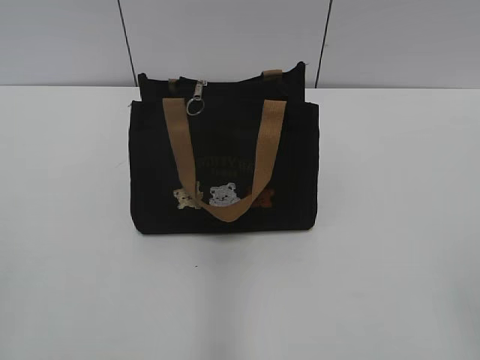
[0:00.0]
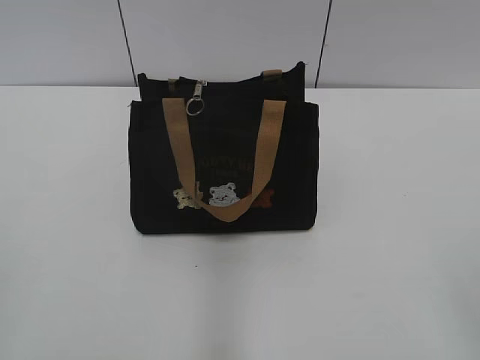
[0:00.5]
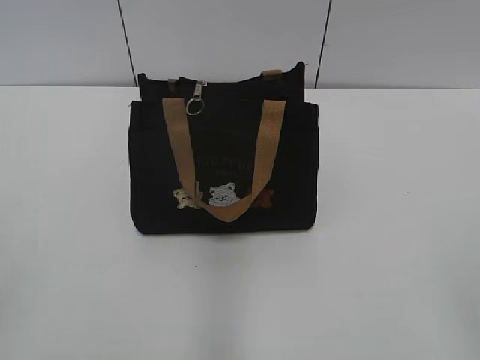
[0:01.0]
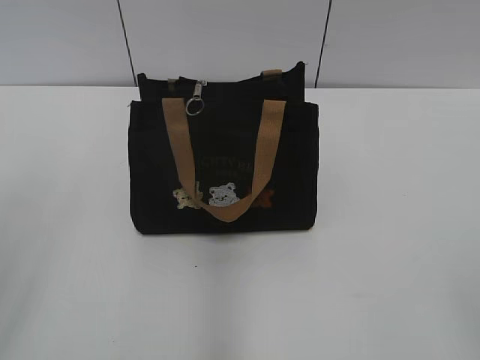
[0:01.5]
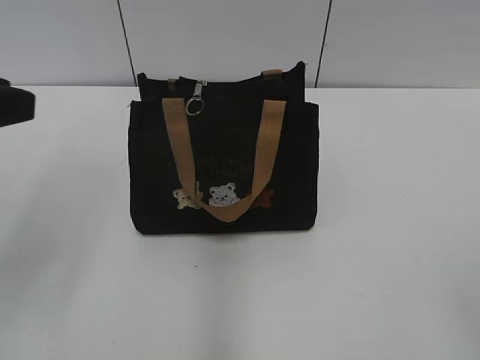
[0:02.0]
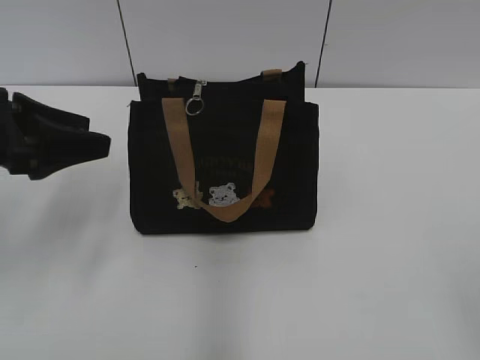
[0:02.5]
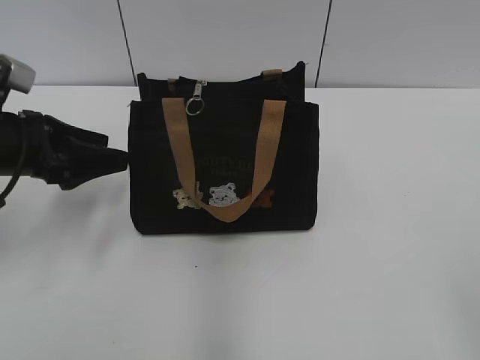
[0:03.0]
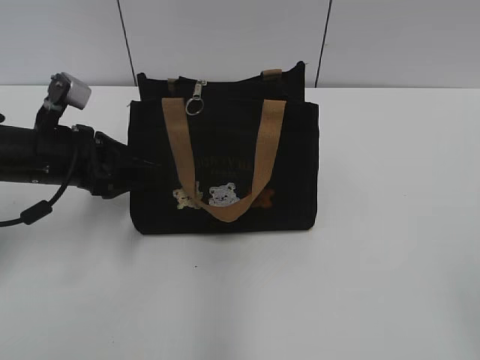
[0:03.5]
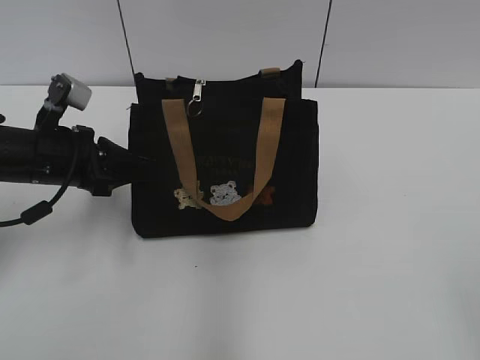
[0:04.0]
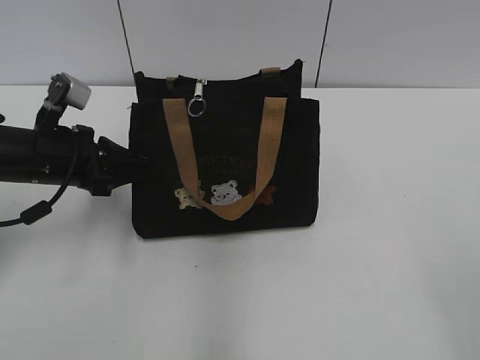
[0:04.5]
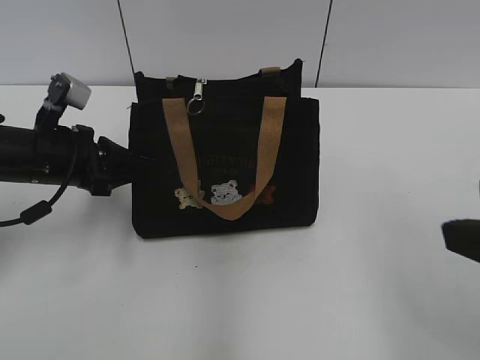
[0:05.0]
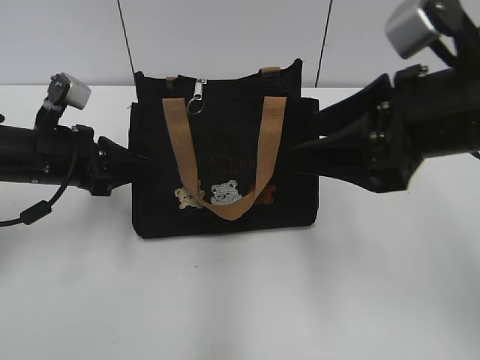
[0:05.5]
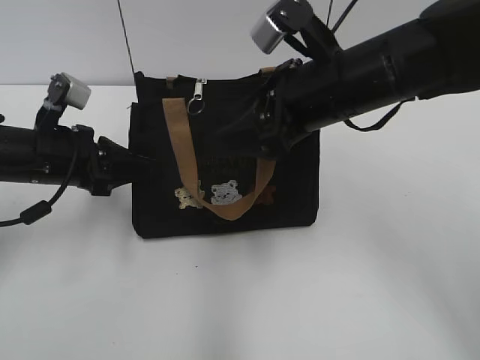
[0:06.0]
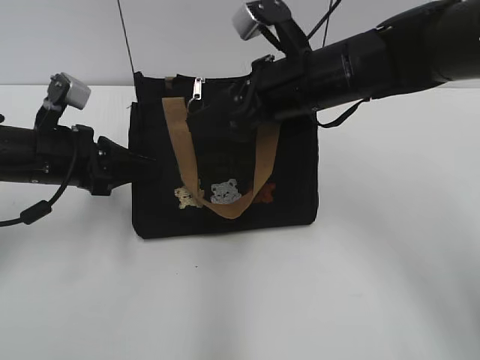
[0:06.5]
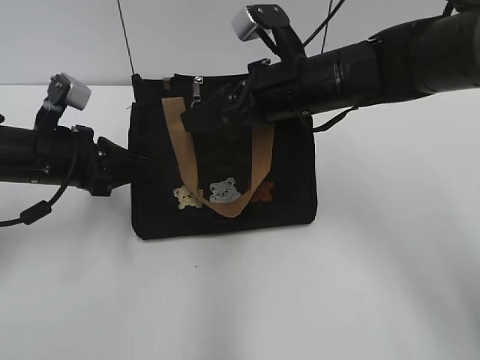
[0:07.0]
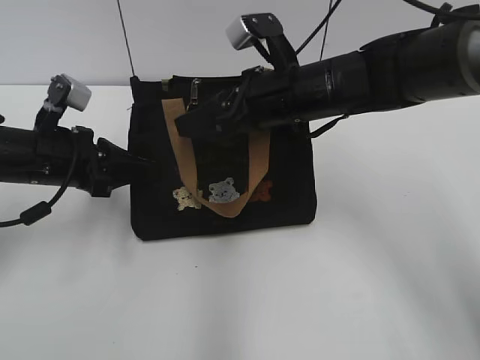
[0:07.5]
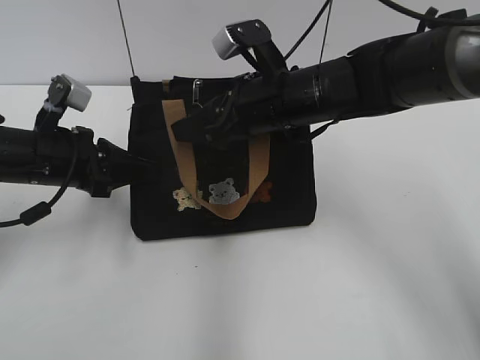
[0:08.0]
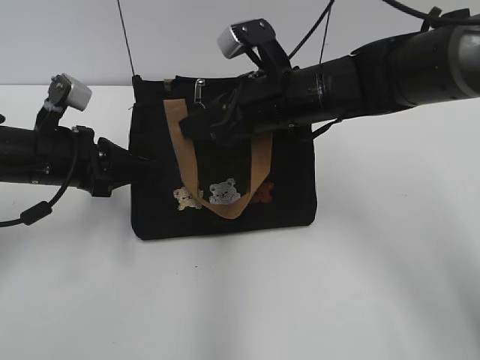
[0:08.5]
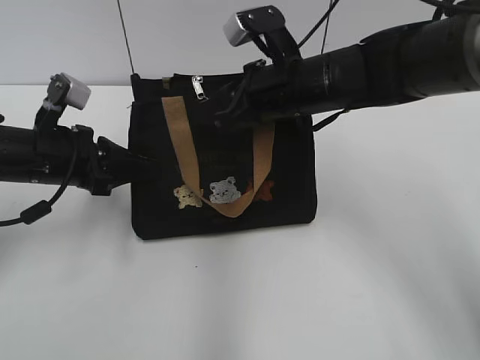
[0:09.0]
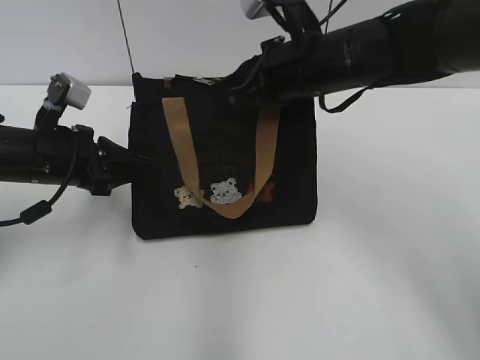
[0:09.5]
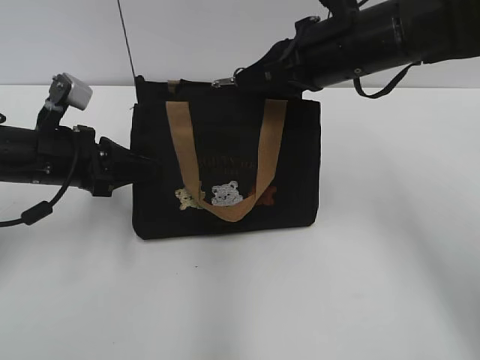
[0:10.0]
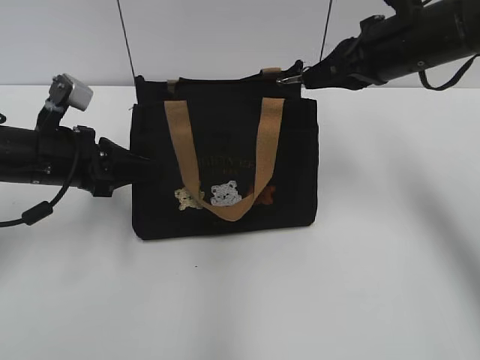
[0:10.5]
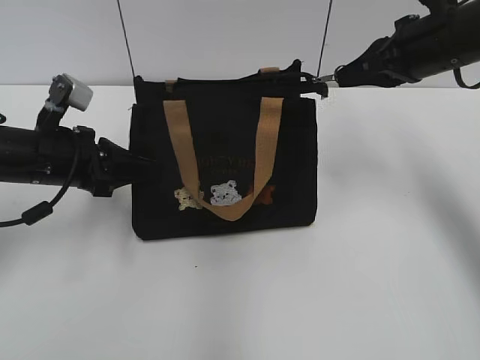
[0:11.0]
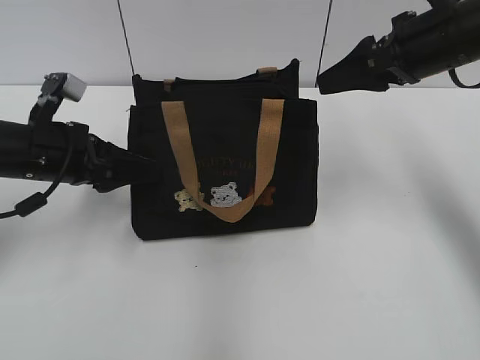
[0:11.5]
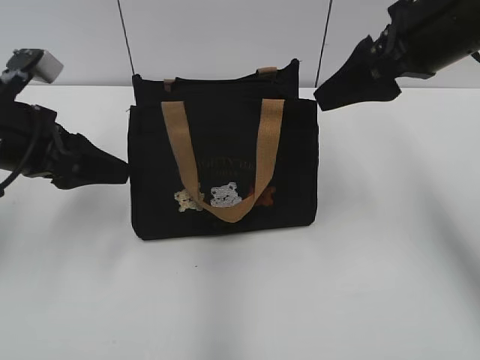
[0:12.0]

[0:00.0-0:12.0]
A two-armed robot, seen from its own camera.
Step, 0:00.0 to 0:11.0: Pull open the zipper with your right hand.
Step, 0:11.5 to 0:12.0: Hold the bag with your left hand.
0:02.0 to 0:04.0: The left gripper moves downward and forward, roughly 20 cm, and closes up.
0:04.0 to 0:06.0: The right gripper moves forward and to the left, roughly 35 cm.
0:06.0 to 0:08.0: The right gripper goes some 10 cm downward and forward.
0:08.0 to 0:10.0: The right gripper moves upward and to the right, some 10 cm, and closes.
0:10.0 to 0:12.0: The right gripper heads to the right, covering approximately 5 cm, and opens its fingers; the left gripper travels upward by roughly 5 cm, and opens.

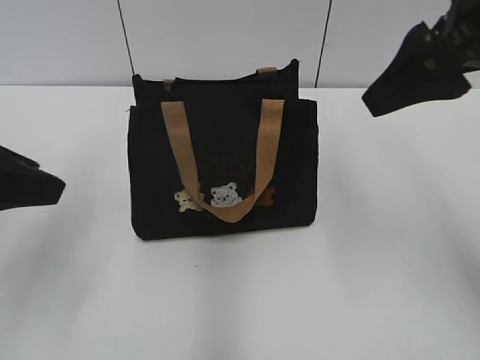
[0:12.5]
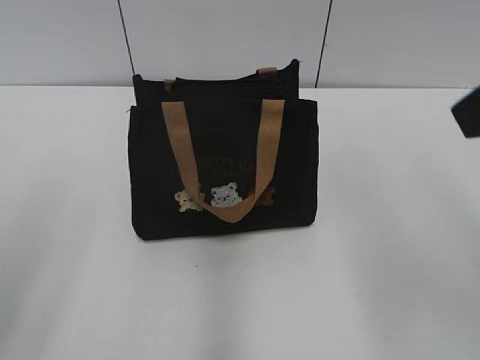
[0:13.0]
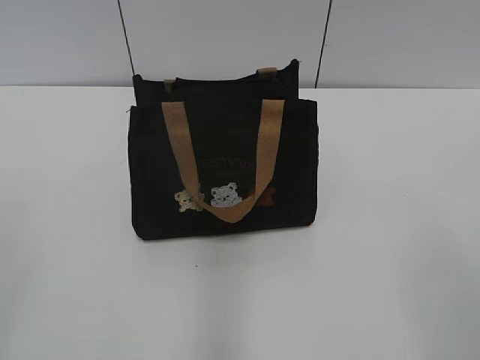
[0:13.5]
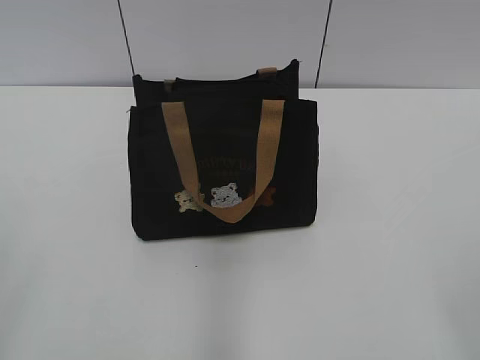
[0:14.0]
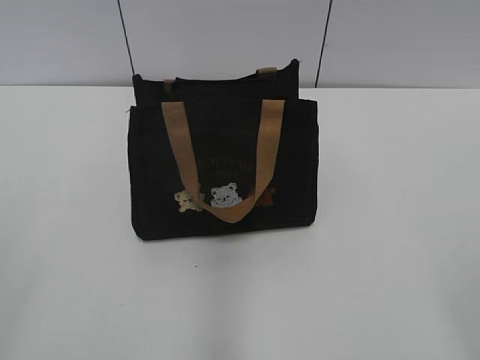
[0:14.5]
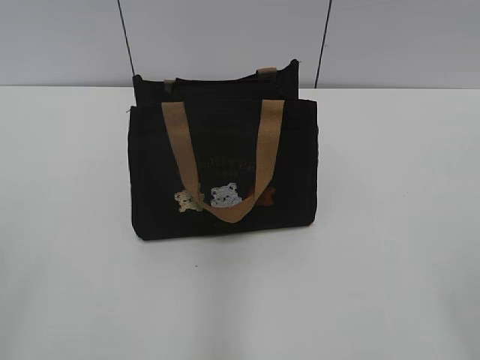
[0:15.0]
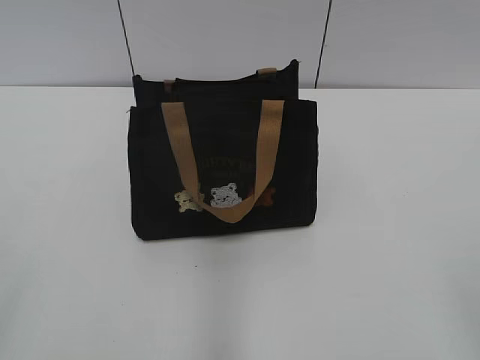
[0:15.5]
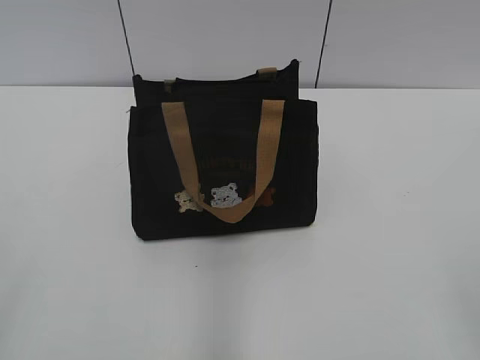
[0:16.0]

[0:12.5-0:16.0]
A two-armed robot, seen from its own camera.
0:12.5 to 0:14.5: Both grippers travel together backward, about 25 cm.

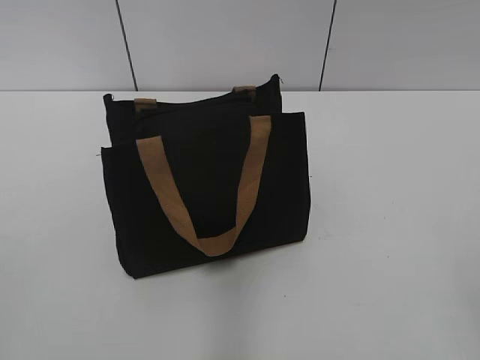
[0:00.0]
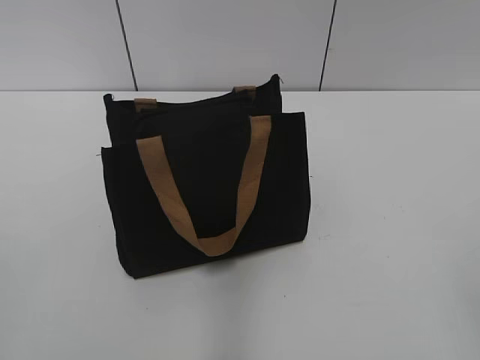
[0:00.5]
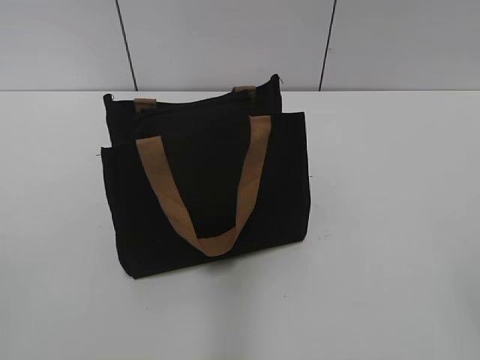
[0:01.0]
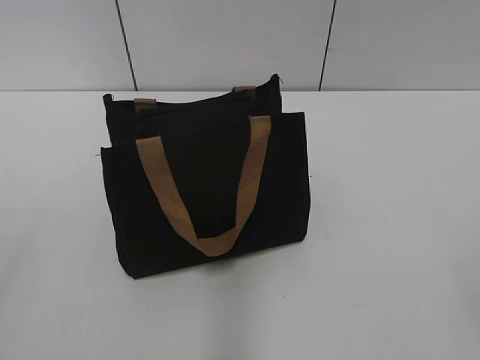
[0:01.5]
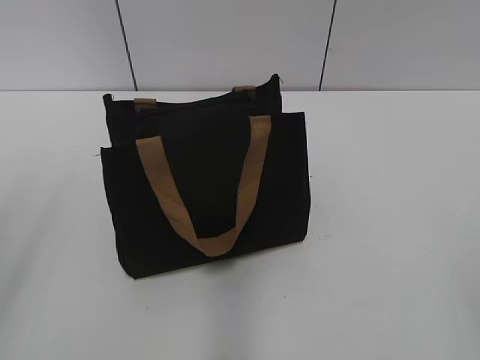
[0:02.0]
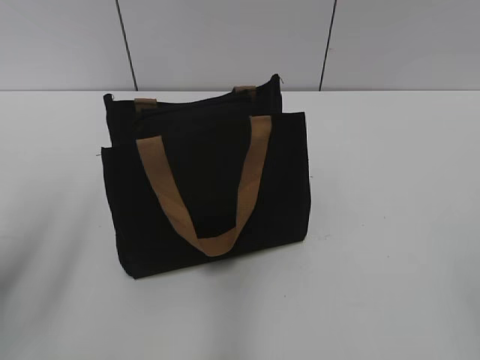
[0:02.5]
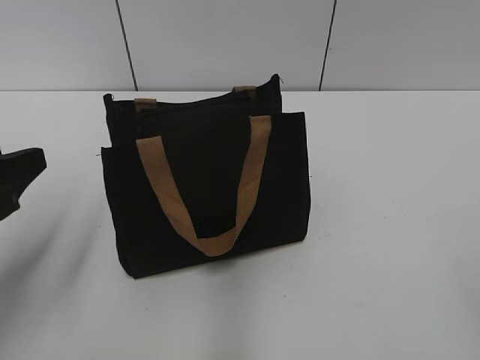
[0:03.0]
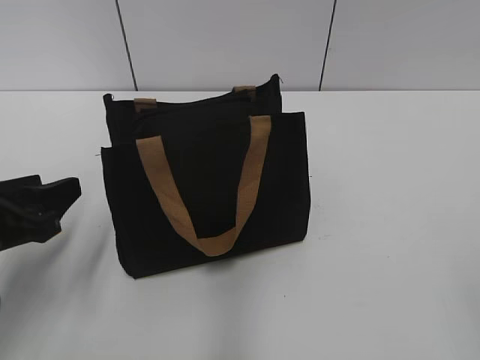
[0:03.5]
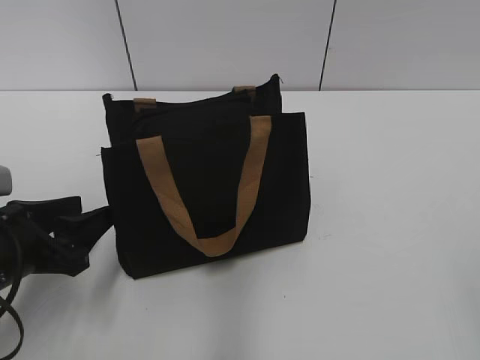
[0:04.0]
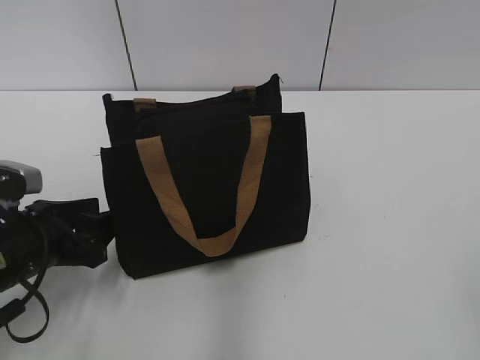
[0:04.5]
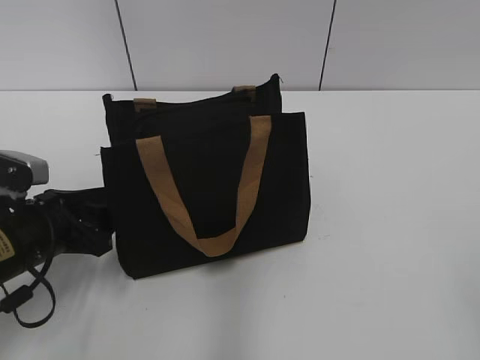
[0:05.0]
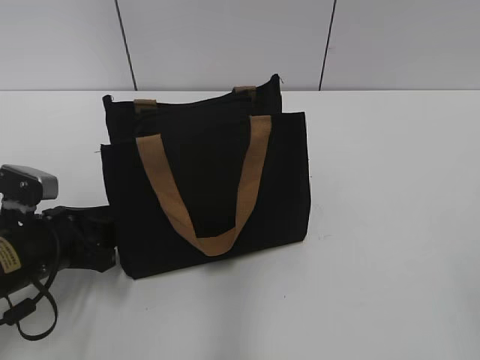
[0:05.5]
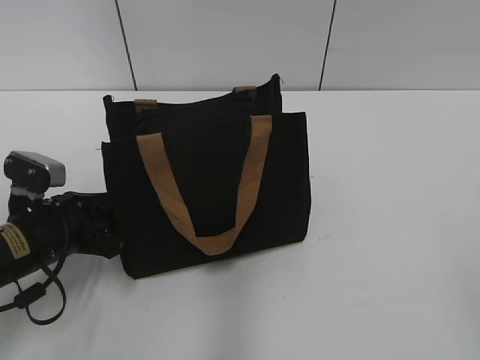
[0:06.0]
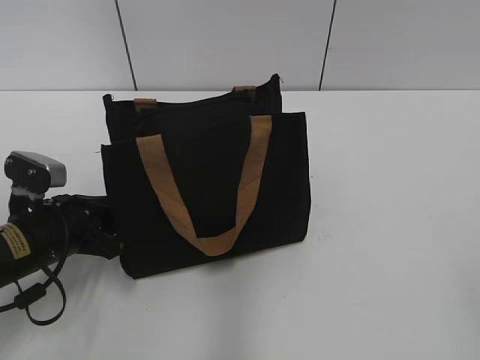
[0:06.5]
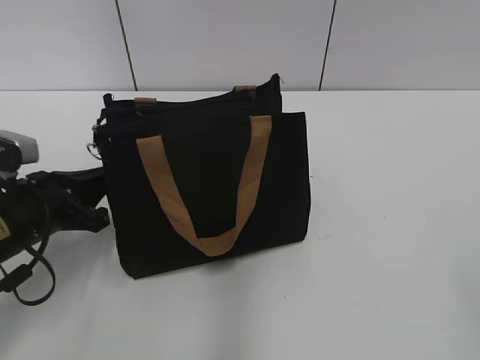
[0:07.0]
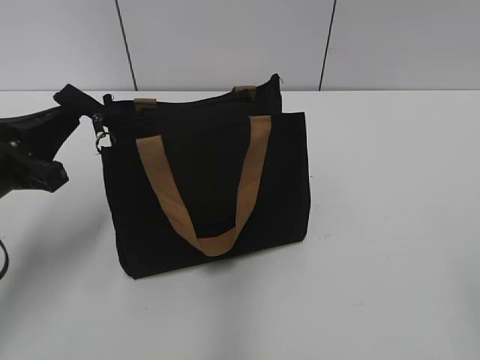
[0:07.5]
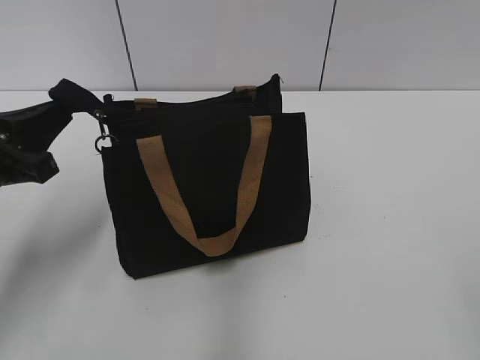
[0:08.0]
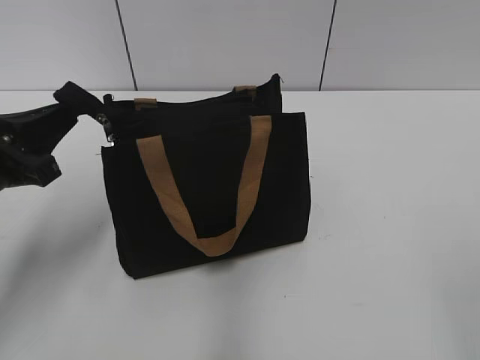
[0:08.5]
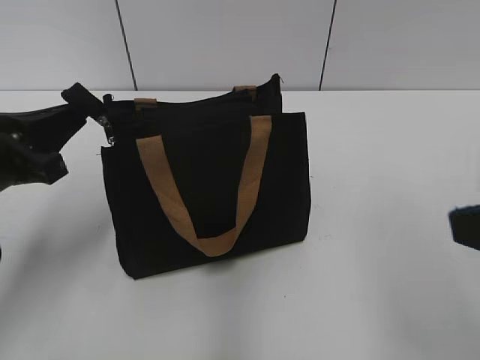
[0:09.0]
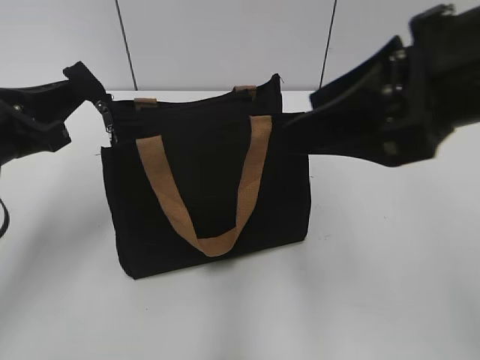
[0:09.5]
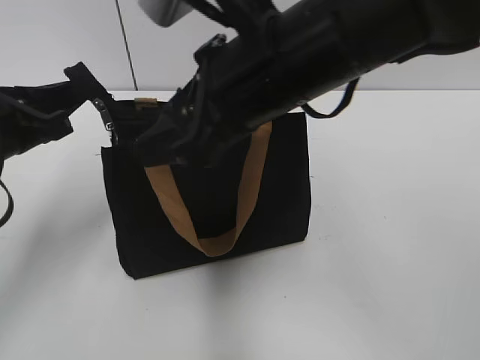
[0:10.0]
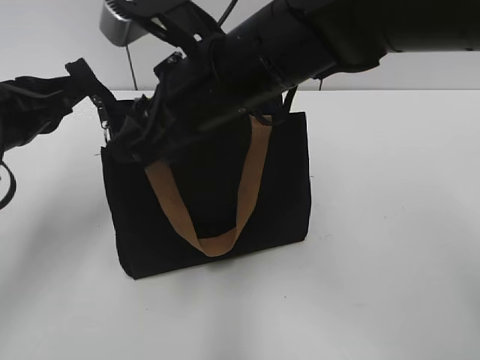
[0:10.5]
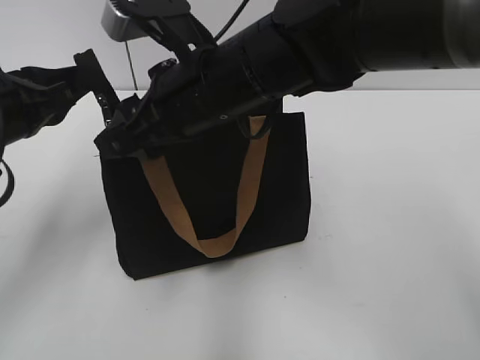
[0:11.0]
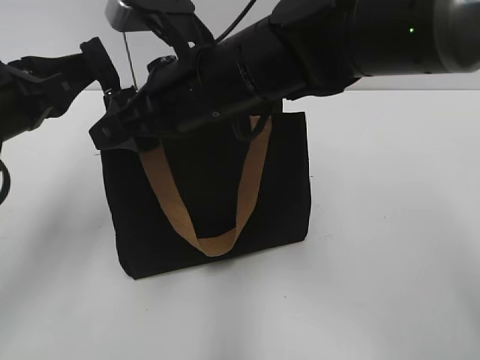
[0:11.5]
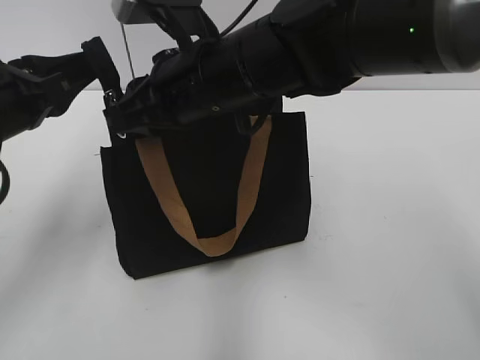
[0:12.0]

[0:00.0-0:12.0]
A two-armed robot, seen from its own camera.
0:02.0 to 0:04.0: The left gripper shifts about 20 cm downward and forward.
0:04.0 to 0:06.0: The left gripper heads forward, covering some 5 cm.
0:06.0 to 0:08.0: The left gripper is displaced upward by some 10 cm, and closes up.
0:08.0 to 0:10.0: The right gripper shifts roughly 35 cm forward and to the left.
0:10.0 to 0:12.0: The right gripper is displaced forward by some 5 cm, and closes up.
